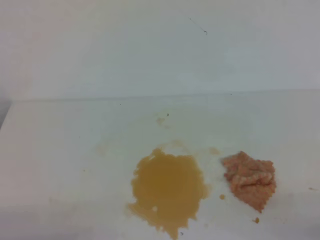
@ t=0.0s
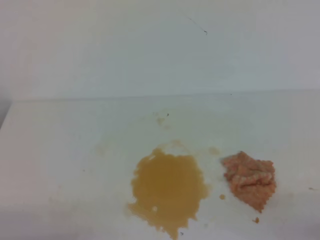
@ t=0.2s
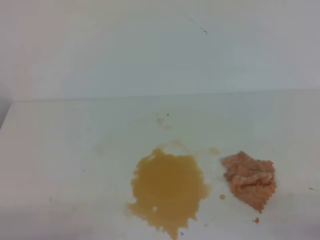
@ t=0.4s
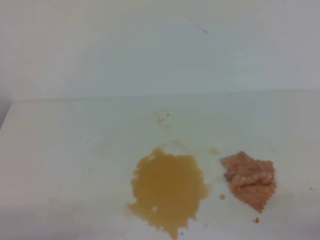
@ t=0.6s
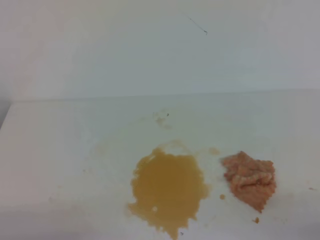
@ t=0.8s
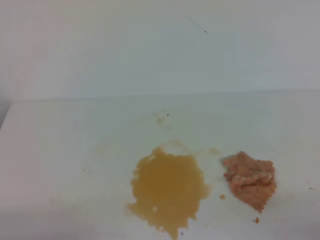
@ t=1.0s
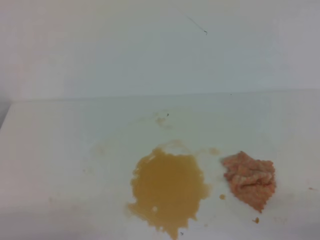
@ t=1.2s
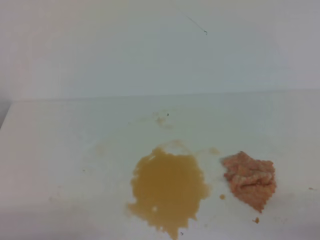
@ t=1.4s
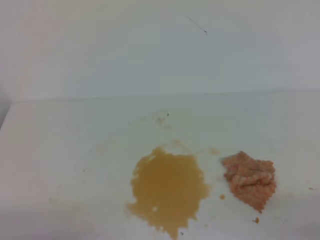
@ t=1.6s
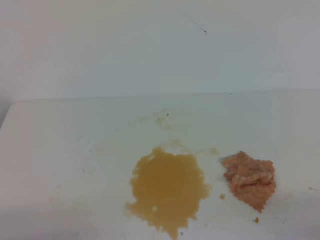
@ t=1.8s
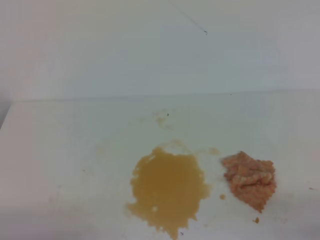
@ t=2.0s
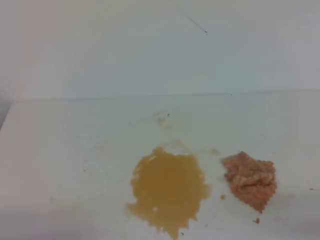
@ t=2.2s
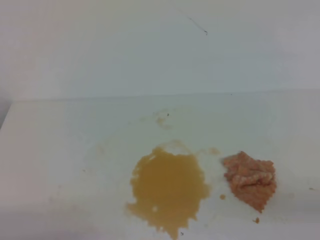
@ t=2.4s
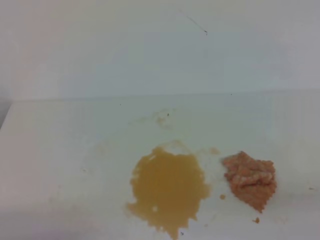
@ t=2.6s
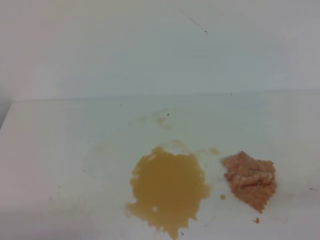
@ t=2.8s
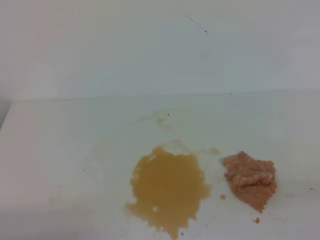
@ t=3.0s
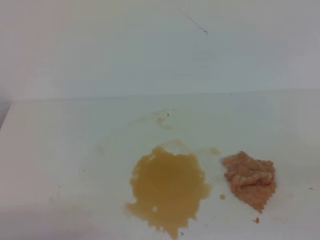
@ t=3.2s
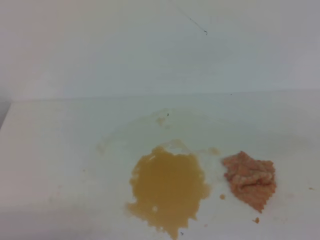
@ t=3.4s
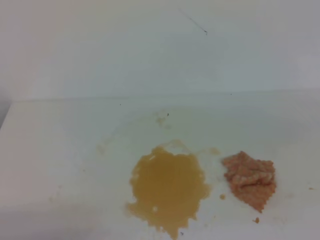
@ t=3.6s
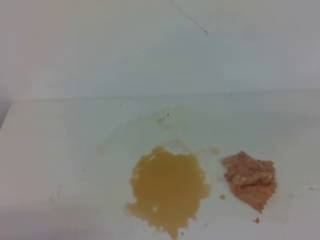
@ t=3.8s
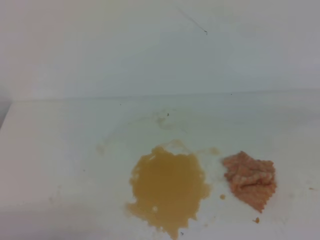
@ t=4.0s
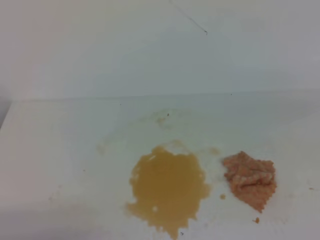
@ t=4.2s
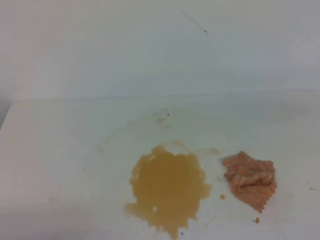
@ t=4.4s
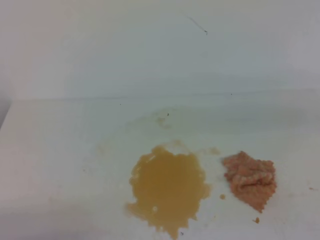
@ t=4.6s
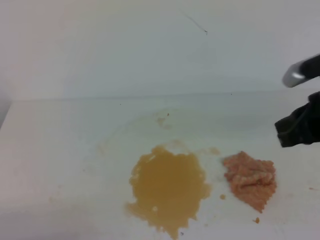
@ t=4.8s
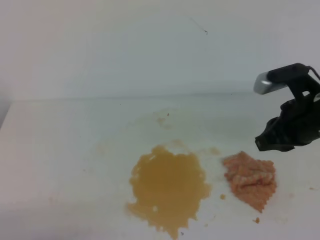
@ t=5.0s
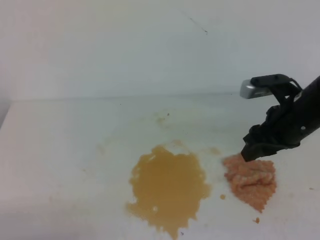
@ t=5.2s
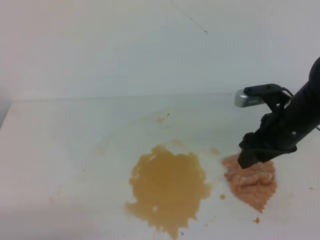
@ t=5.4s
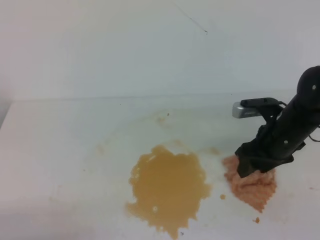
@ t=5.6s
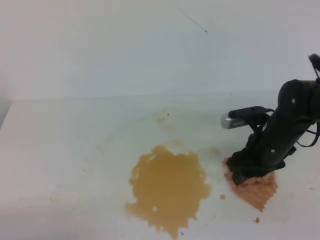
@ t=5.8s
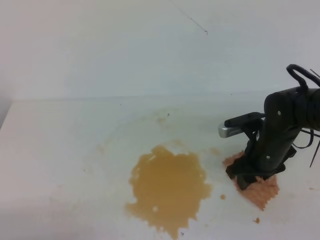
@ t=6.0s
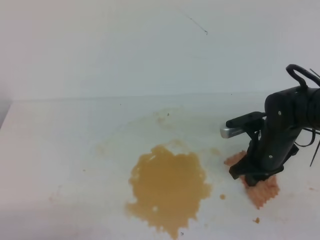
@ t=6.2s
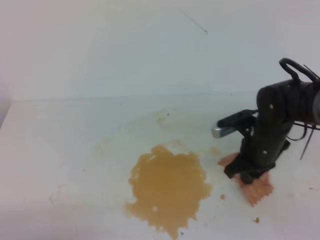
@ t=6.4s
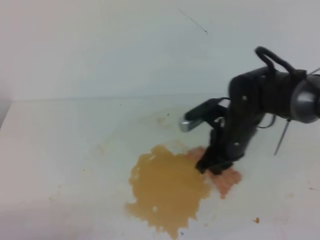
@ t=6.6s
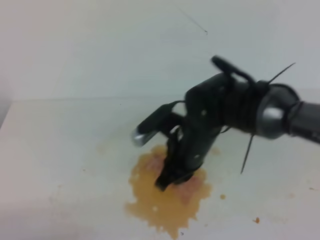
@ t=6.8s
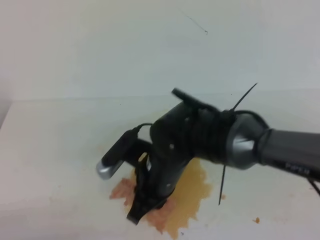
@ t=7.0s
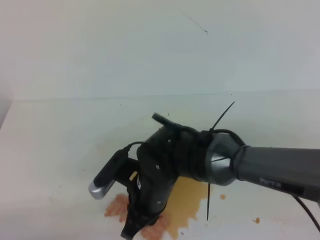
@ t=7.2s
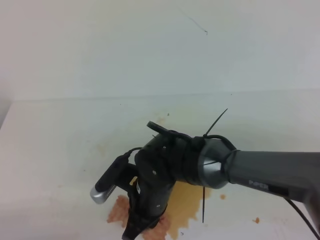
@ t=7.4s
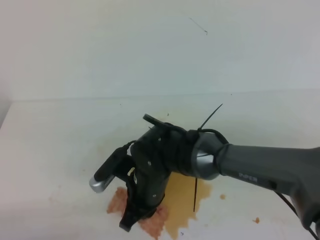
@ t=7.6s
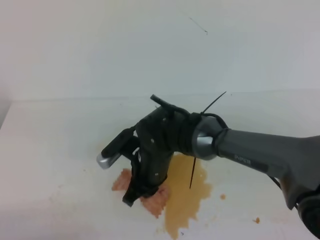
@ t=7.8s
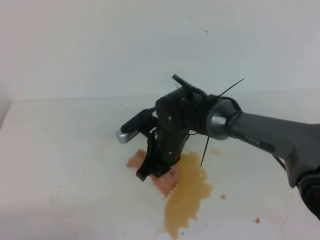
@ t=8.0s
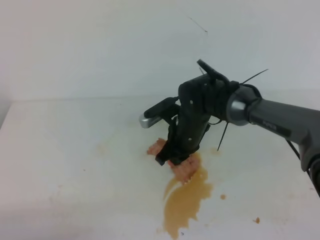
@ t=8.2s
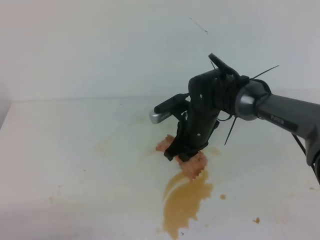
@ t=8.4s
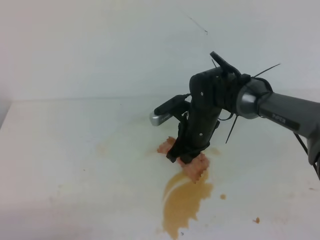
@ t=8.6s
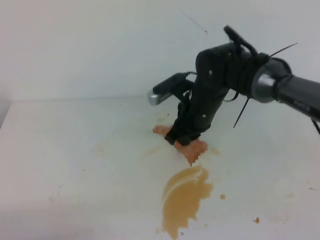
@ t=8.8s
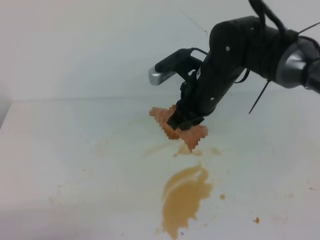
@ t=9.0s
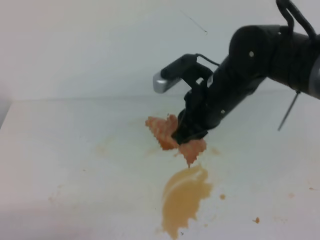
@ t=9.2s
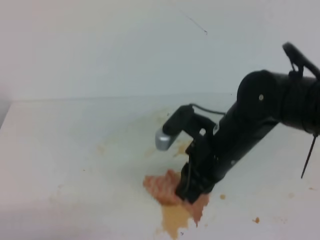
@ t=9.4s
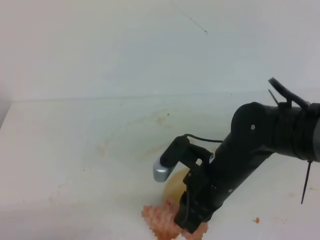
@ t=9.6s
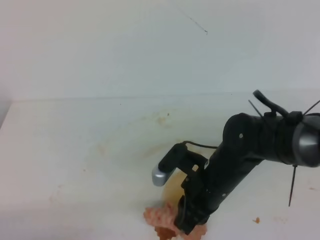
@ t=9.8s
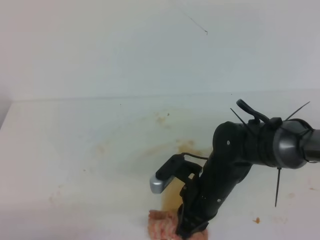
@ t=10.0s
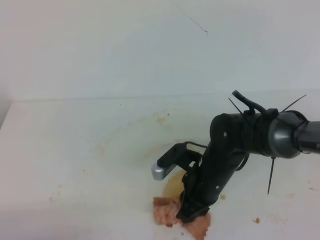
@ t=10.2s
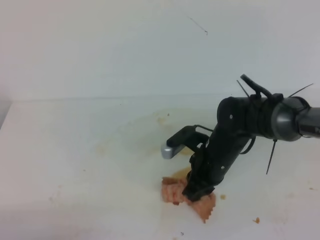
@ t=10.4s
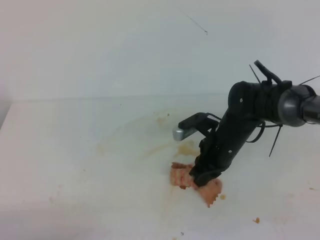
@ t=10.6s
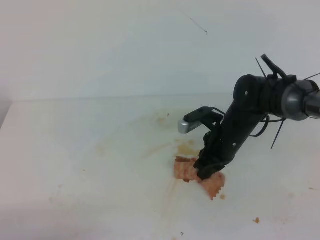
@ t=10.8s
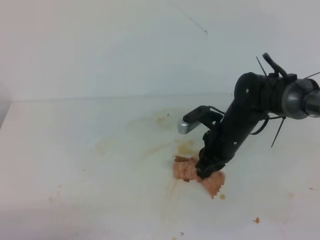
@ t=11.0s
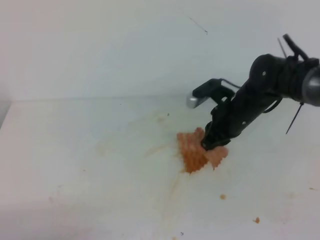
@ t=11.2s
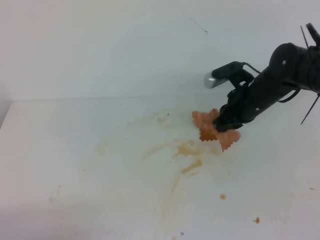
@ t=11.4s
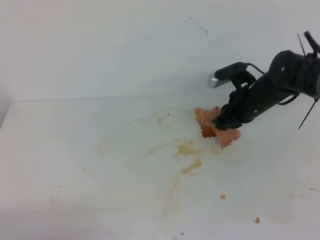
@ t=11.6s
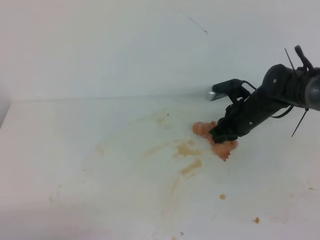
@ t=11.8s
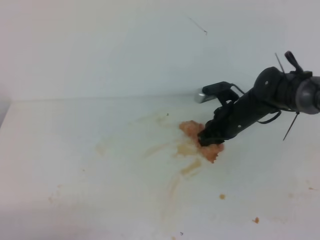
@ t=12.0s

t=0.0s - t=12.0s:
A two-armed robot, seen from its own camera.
t=0.0s - t=1.6s: Both grippers stay about where they are.
t=4.4s - t=6.0s: The right gripper travels downward, to the left and forward by approximately 25 cm, and opens.
t=6.0s - t=7.6s: The right gripper is displaced to the left by roughly 20 cm, and closes up.
t=7.6s - t=9.0s: The right gripper shifts approximately 20 cm upward, to the right and forward.
t=9.0s - t=10.4s: The right gripper travels downward by roughly 15 cm.
t=10.4s - t=12.0s: The right gripper is displaced forward by roughly 10 cm.

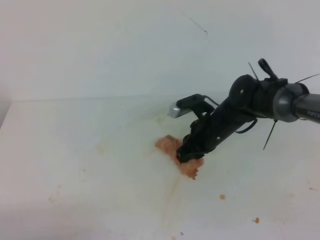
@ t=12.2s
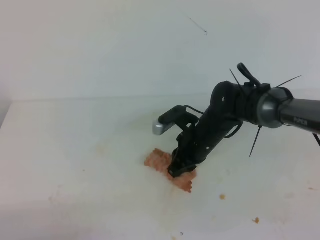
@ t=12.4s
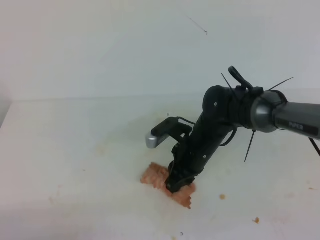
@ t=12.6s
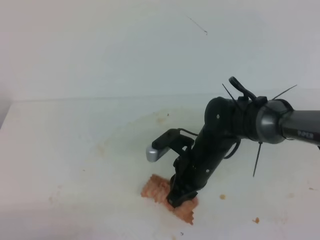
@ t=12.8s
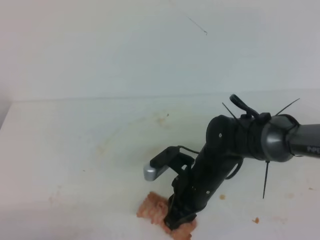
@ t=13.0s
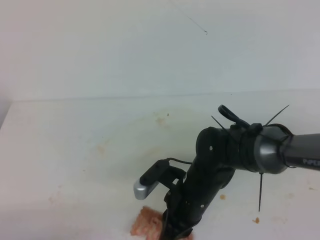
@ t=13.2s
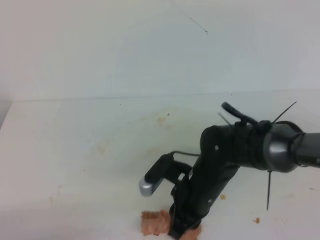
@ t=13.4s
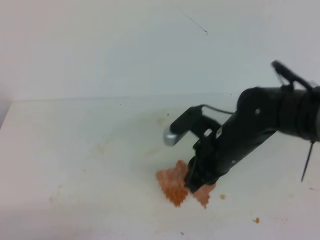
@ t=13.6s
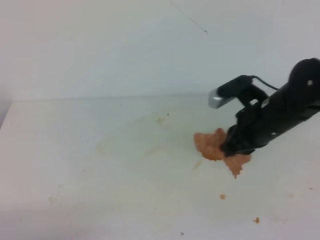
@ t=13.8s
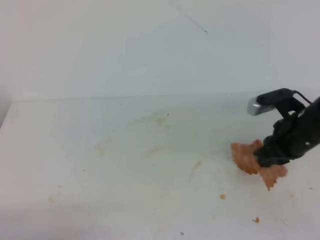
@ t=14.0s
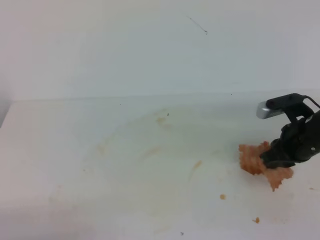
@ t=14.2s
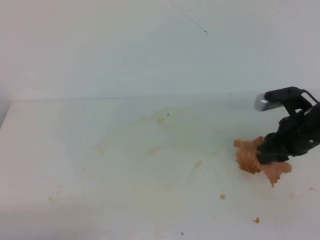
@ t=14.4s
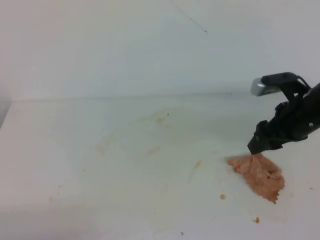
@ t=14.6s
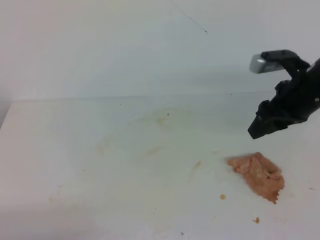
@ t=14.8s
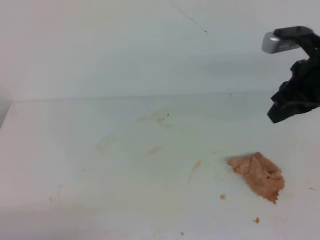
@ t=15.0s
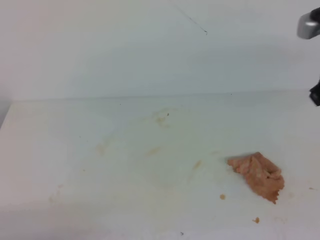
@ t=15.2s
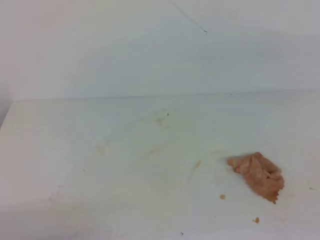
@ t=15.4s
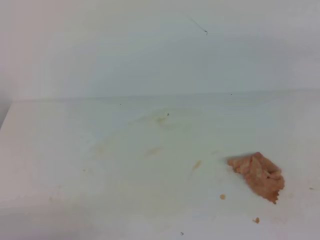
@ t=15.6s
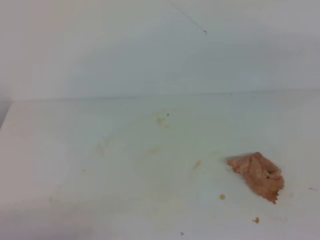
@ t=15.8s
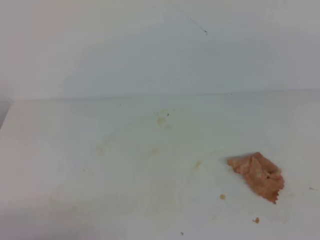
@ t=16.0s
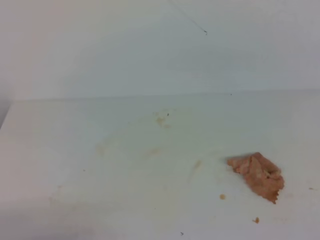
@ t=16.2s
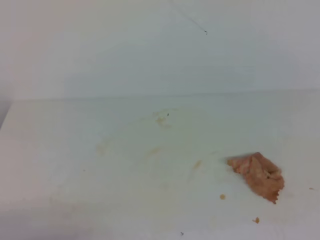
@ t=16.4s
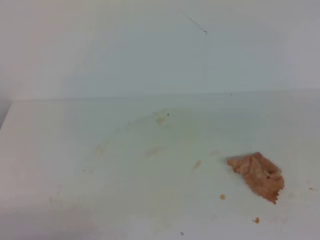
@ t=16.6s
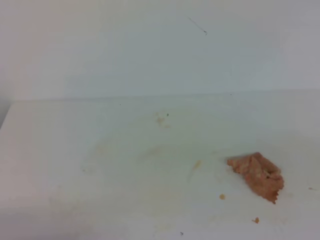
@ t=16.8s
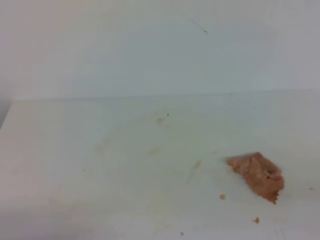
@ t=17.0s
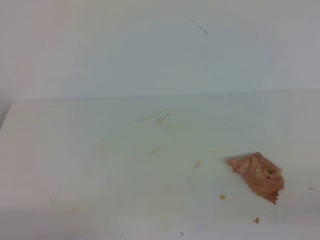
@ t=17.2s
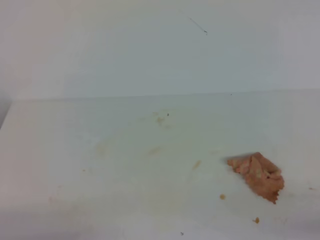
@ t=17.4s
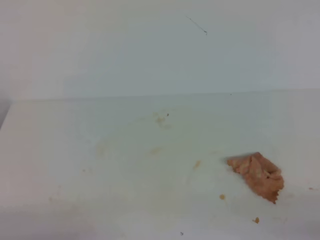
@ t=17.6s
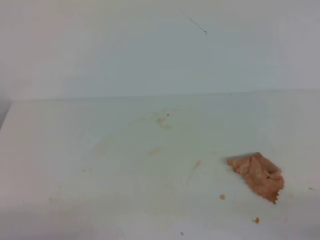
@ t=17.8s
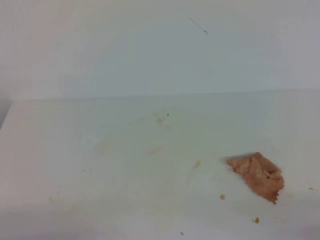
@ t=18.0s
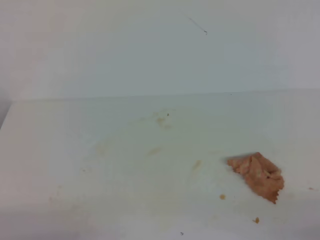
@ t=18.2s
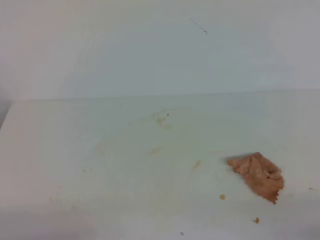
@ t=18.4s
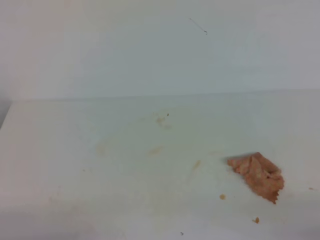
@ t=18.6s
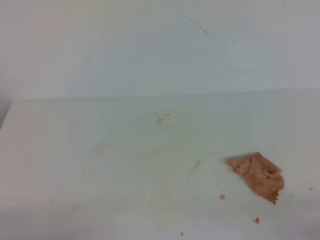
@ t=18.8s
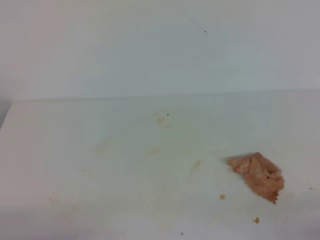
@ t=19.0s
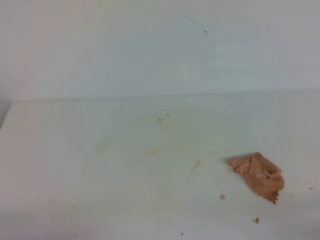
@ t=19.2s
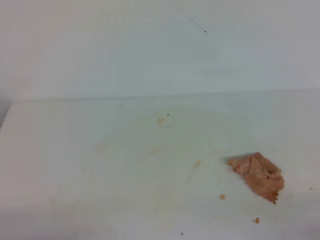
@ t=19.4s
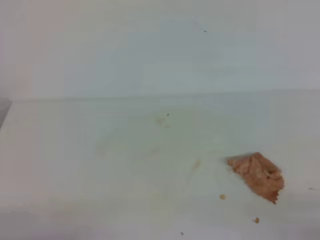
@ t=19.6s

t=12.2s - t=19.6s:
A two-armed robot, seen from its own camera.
t=12.2s - t=13.6s: The right gripper heads backward and upward, covering some 15 cm.
t=13.6s - t=15.2s: The right gripper travels upward and to the right by roughly 20 cm, and opens, then closes again.
t=15.2s - t=16.6s: The right gripper moves backward, some 20 cm.
t=18.2s - t=19.6s: Neither gripper changes place.
